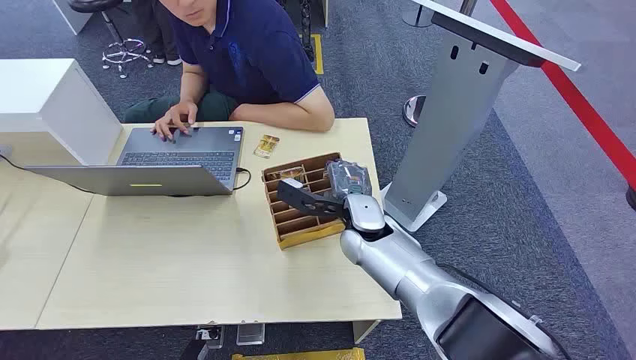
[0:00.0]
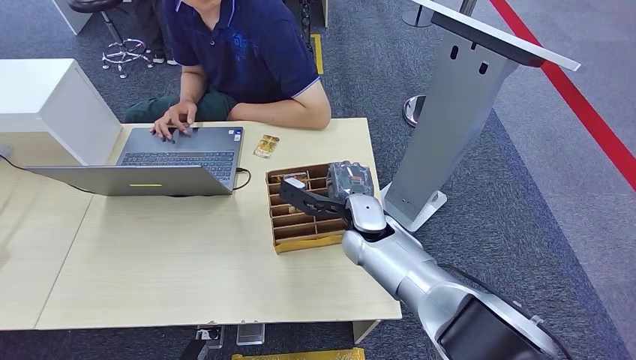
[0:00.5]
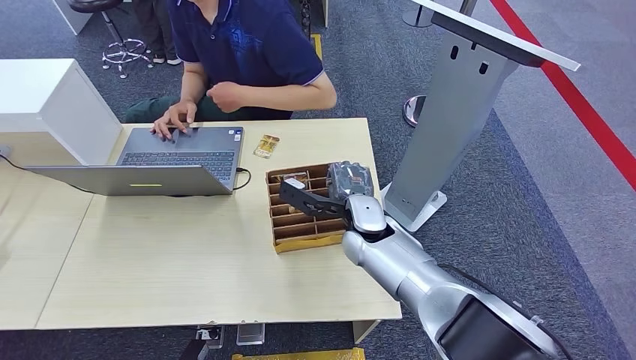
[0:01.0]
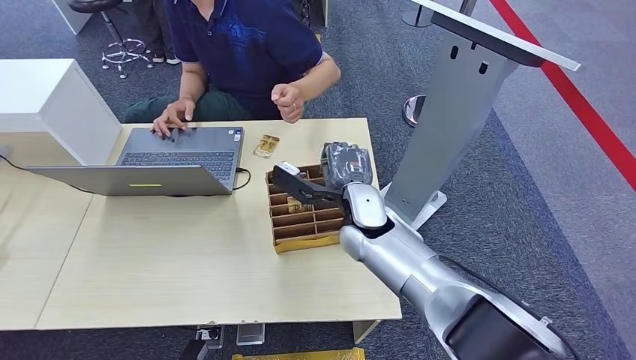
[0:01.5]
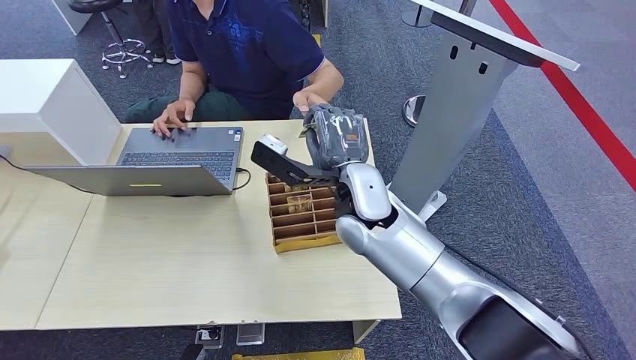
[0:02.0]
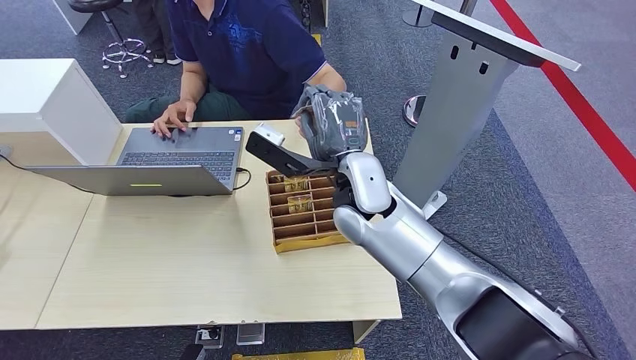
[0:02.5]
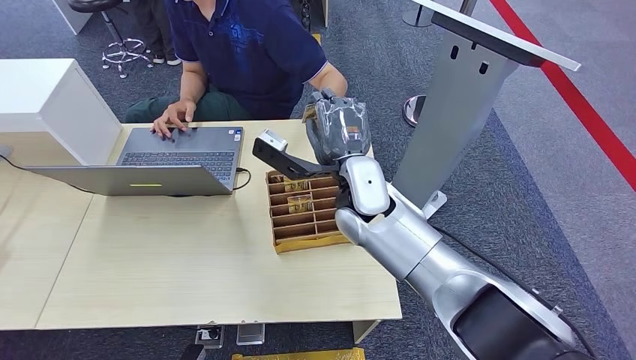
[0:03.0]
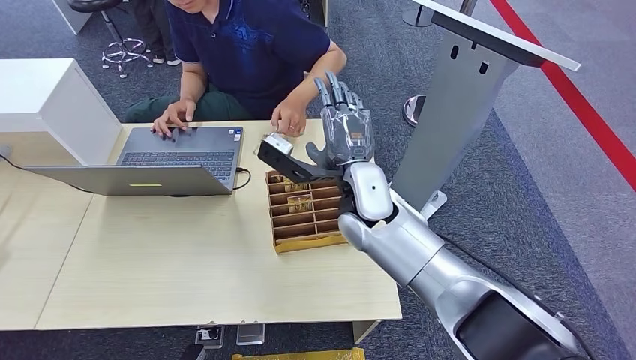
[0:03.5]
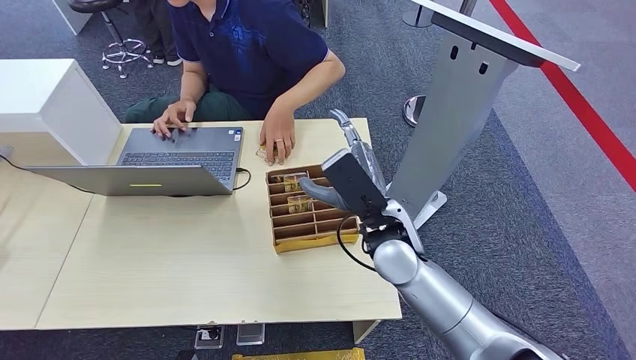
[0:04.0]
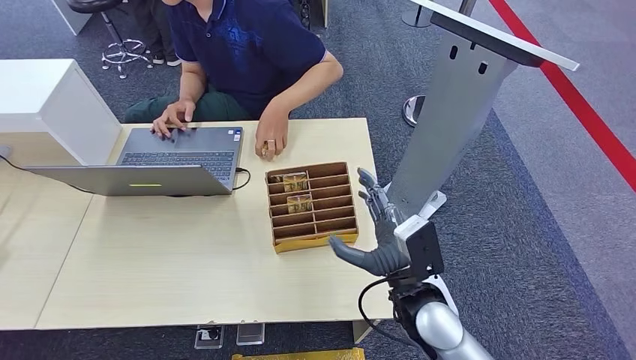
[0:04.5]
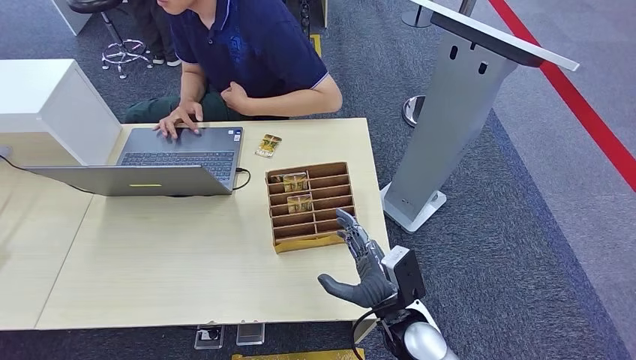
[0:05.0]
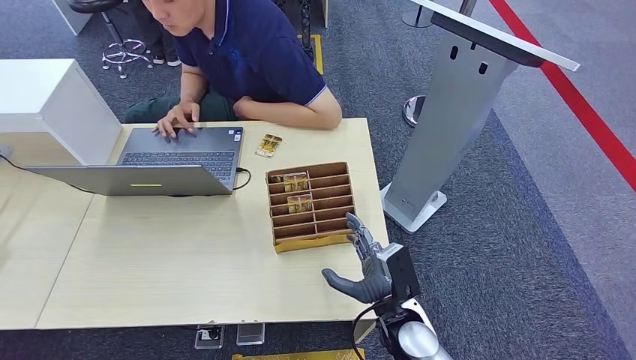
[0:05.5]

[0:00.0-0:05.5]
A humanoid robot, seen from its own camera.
Step, 0:00.0 to 0:01.0: Pick up the key card from the card box.
Step, 0:02.0 to 0:05.5: Hand the key card to the target.
0:02.0 to 0:03.5: The hands stay close to where they were, moving slightly.
0:03.5 to 0:05.5: The right hand goes roughly 25 cm downward, backward and to the right.
